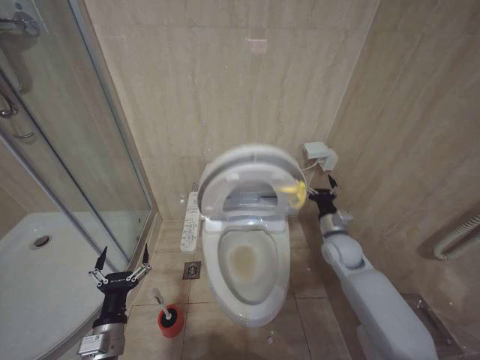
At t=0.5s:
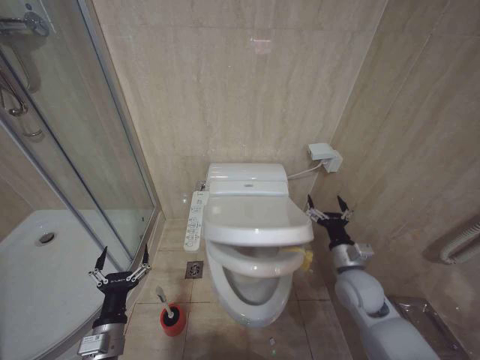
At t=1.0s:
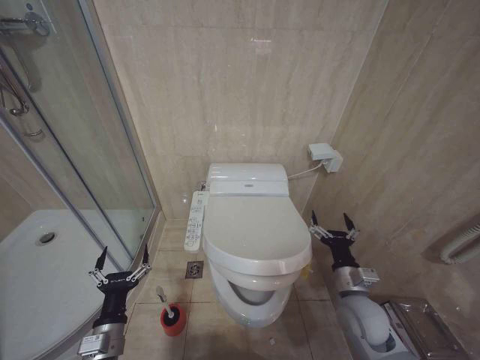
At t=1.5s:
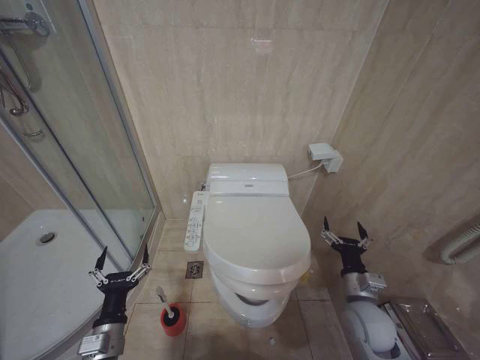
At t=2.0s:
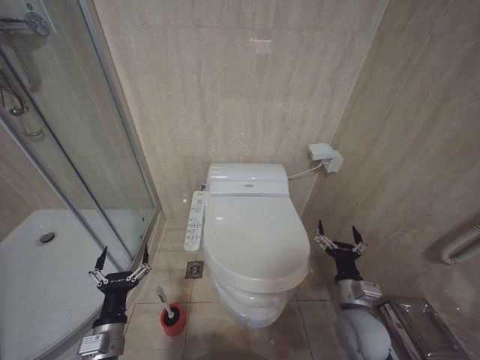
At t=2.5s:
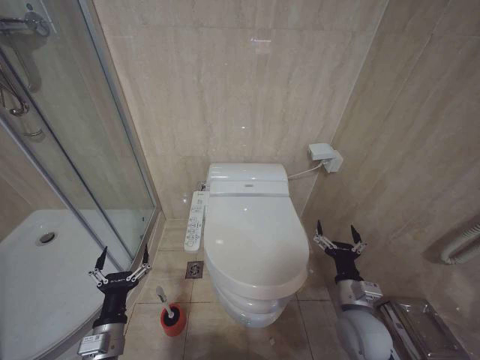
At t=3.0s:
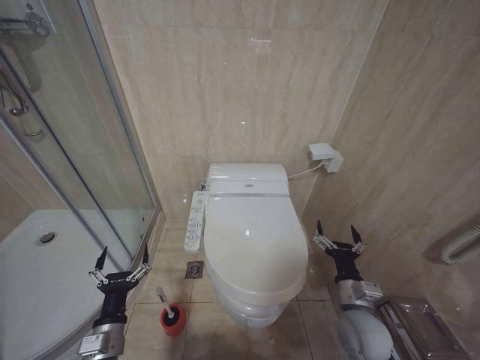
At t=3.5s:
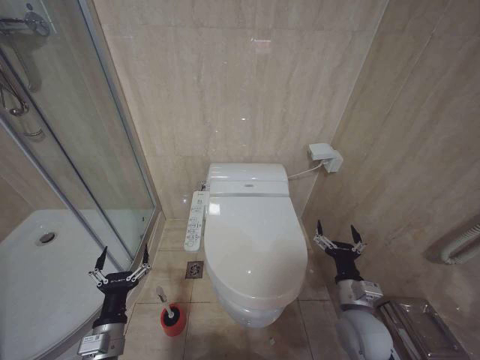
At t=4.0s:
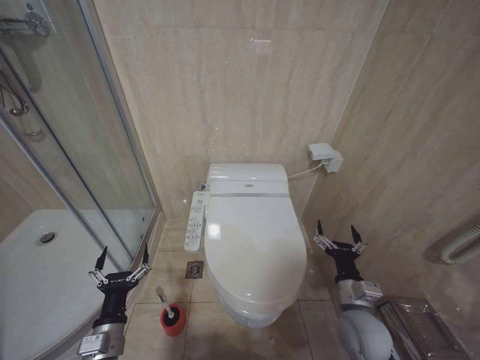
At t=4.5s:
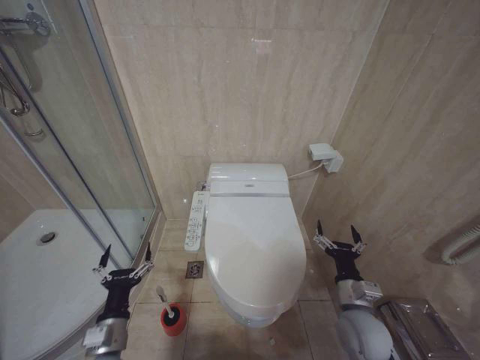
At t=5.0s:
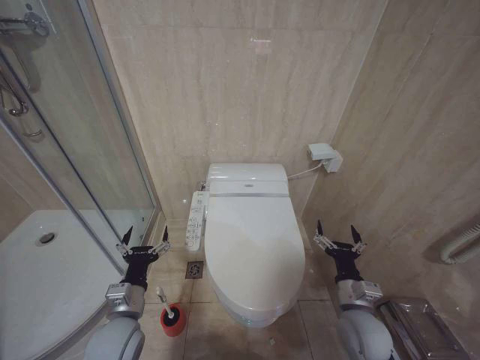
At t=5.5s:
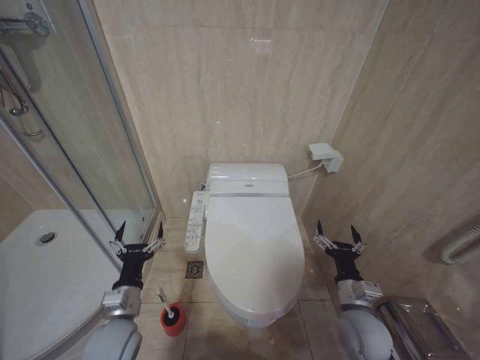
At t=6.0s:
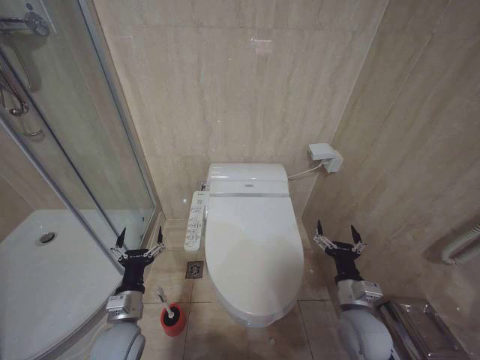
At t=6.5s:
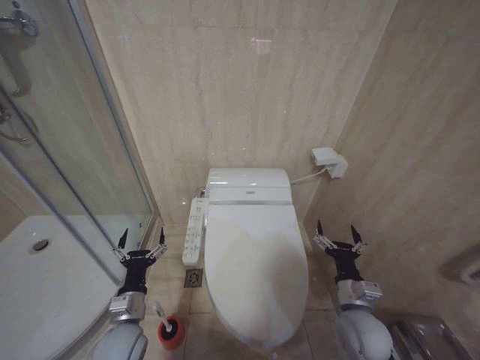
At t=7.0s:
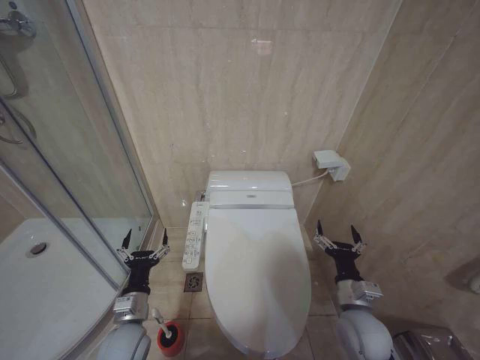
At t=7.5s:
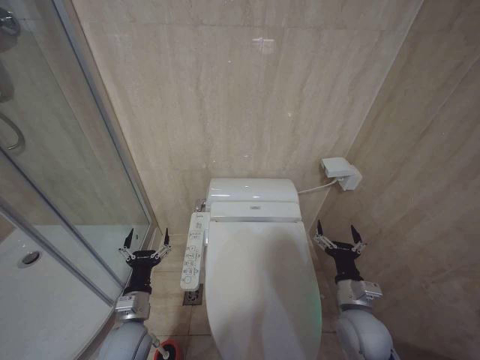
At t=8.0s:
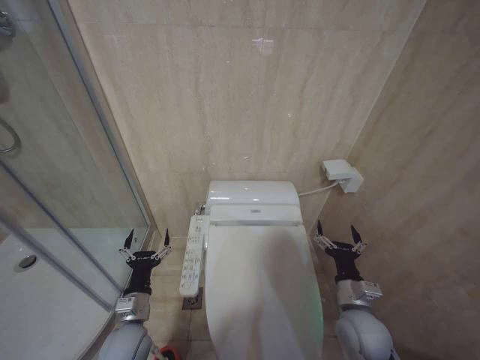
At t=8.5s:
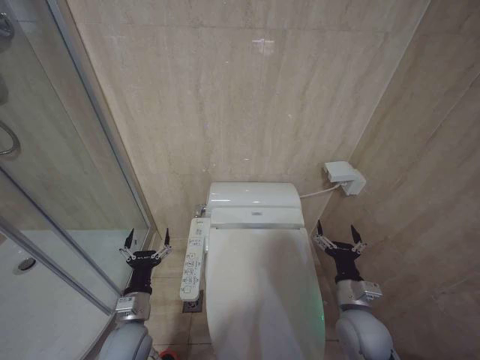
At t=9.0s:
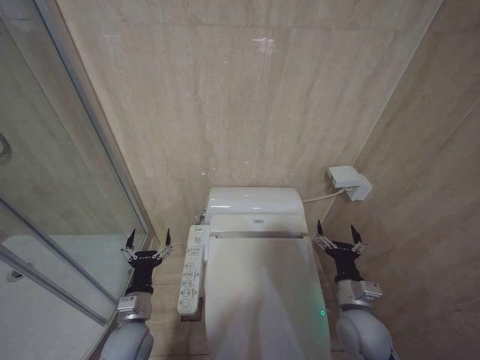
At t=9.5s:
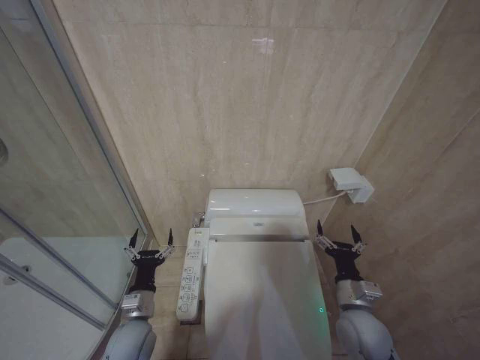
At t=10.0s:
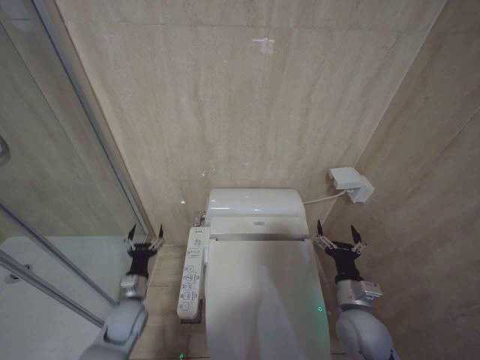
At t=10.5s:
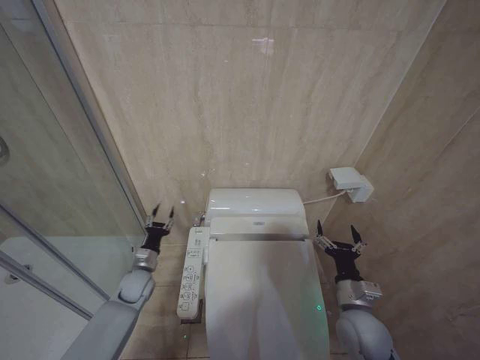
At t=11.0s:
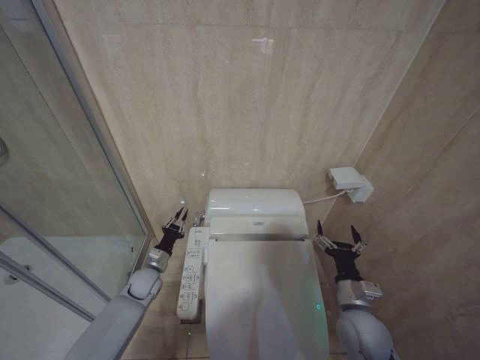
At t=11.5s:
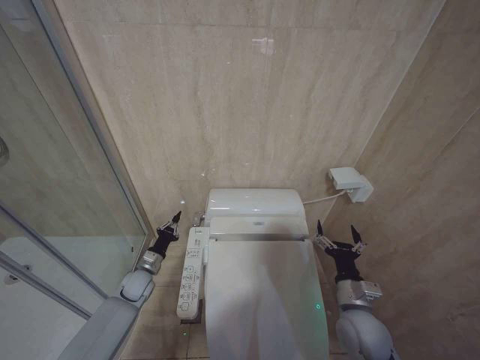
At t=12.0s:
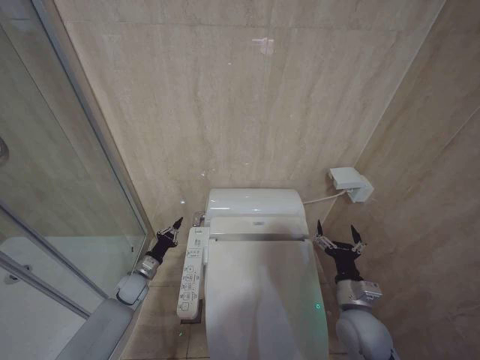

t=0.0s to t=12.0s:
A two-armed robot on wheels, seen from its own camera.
Task of the whole recording: Open the toilet lid, clean the toilet bowl with a toilet brush, close the toilet lid, and flush.
t=0.0s to t=2.0s: The right gripper travels backward by roughly 20 cm.
t=2.0s to t=4.0s: Neither gripper changes place.
t=4.0s to t=6.0s: The left gripper is displaced forward by approximately 5 cm.
t=6.0s to t=8.0s: There are only small adjustments of the grippers.
t=8.0s to t=10.0s: The left gripper moves forward, some 5 cm.
t=10.0s to t=12.0s: The left gripper moves forward, some 10 cm, and closes its fingers.

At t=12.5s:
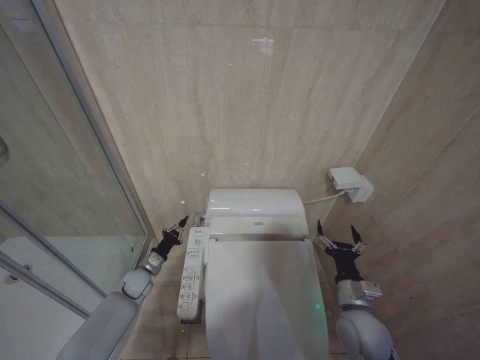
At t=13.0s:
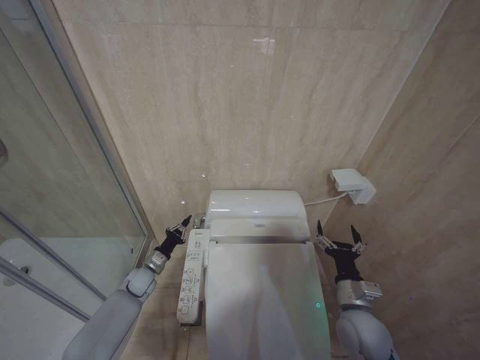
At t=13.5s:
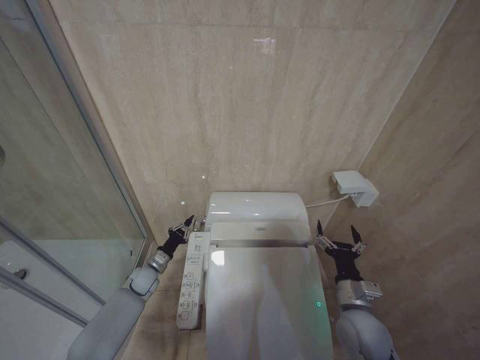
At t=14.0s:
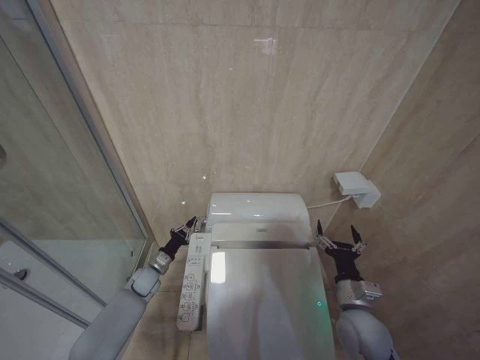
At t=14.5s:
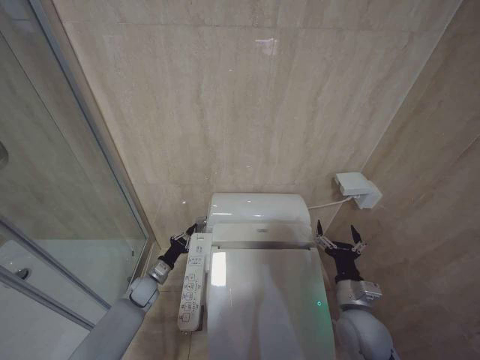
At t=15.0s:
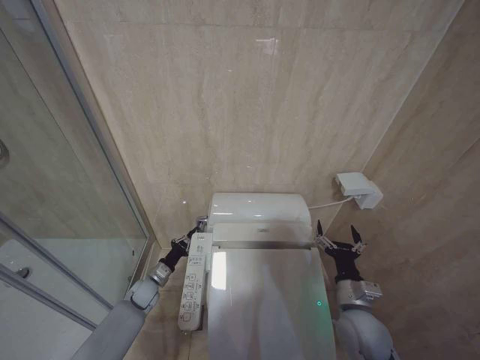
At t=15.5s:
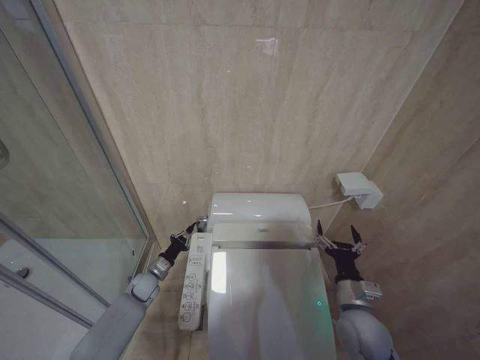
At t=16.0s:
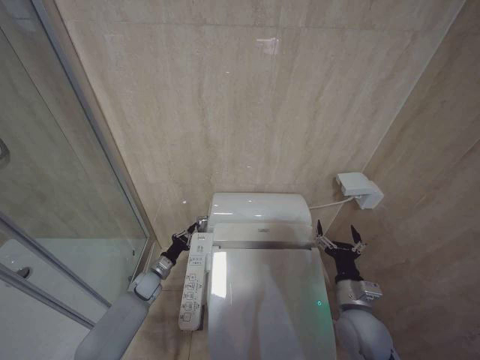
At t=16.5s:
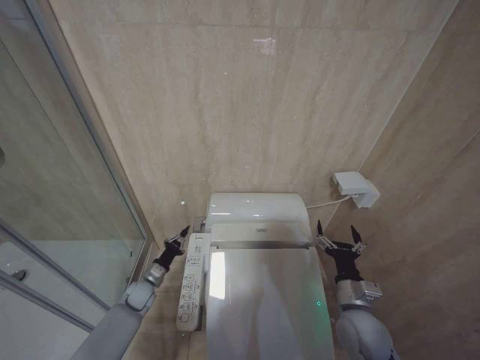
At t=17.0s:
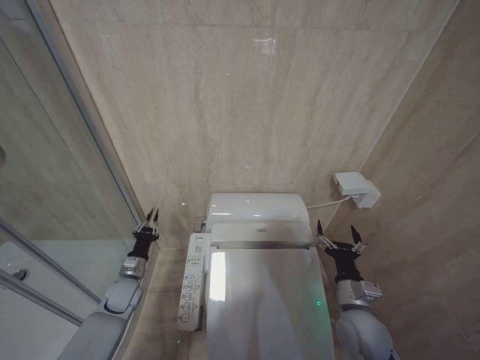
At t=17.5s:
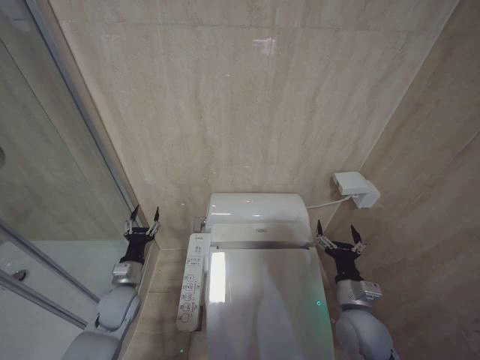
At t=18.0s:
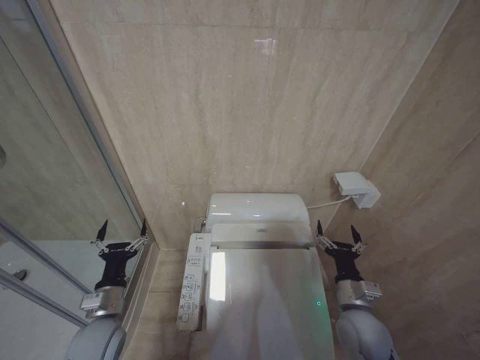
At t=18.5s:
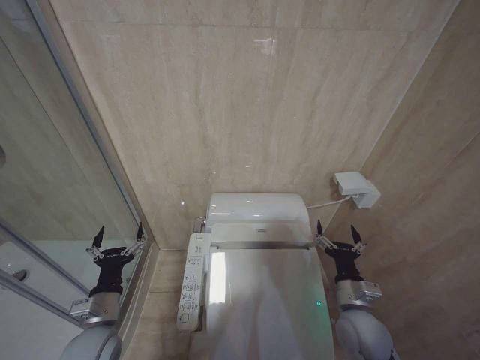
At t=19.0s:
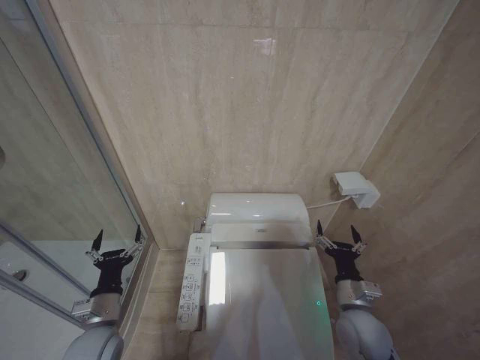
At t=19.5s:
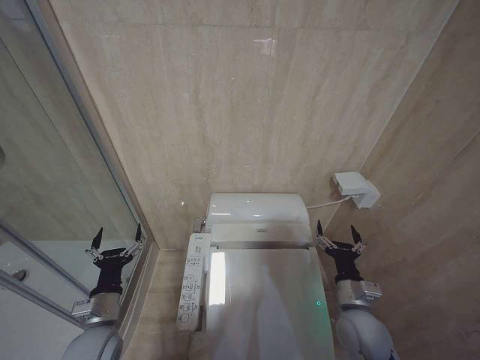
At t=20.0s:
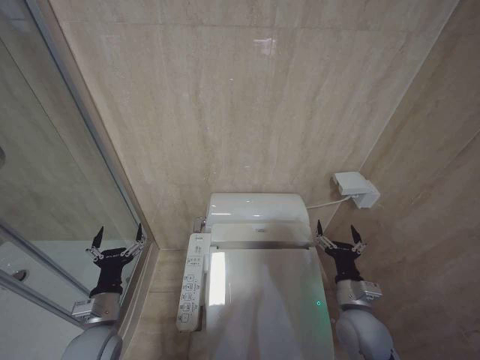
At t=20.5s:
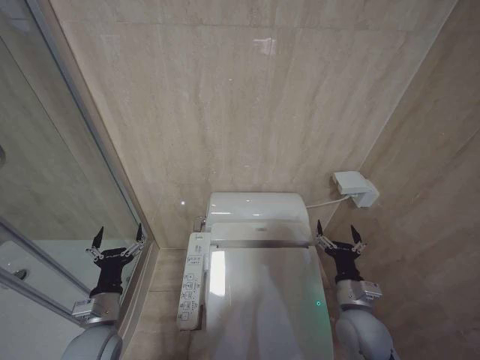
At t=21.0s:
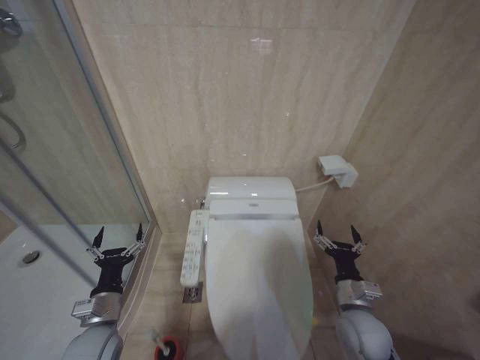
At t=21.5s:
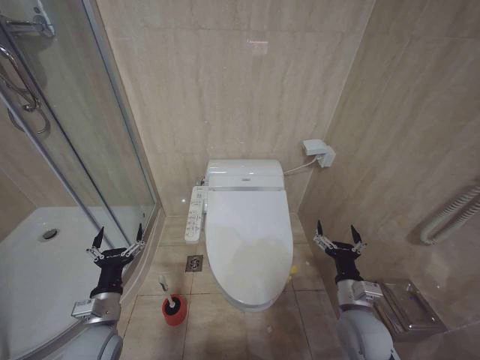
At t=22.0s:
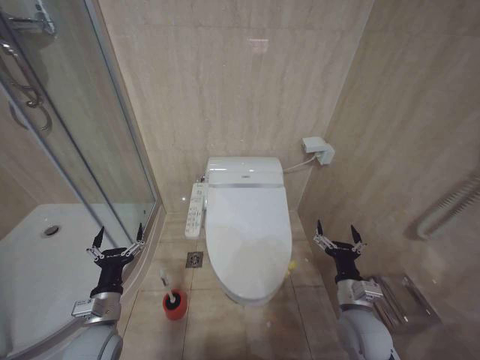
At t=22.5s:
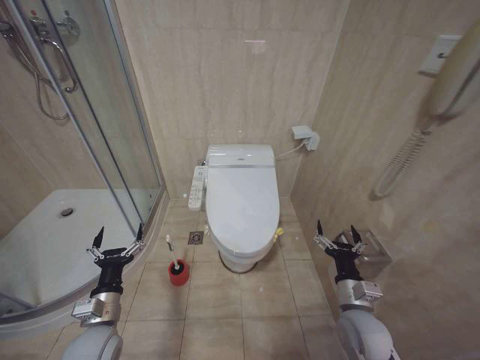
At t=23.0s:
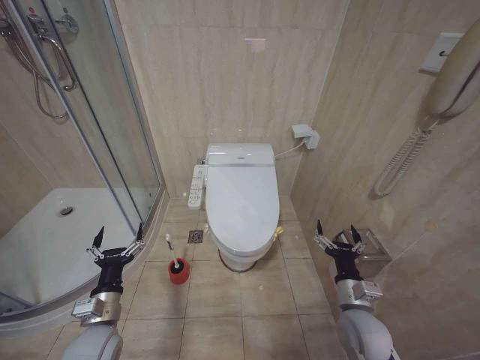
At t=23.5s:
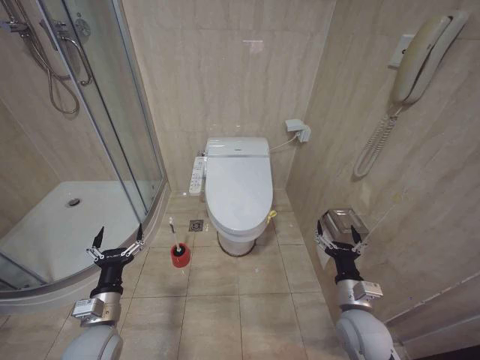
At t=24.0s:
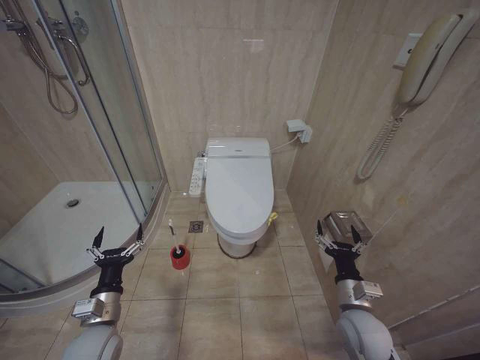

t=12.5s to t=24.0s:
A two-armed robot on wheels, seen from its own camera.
Task of the whole recording: Open the toilet lid, clean the toilet bowl with a toilet brush, close the toilet lid, and flush.
t=12.5s to t=16.5s: The grippers move only a little.
t=16.5s to t=18.5s: The left gripper heads backward and upward, covering about 25 cm, and opens its fingers.
t=18.5s to t=20.0s: Neither gripper changes place.

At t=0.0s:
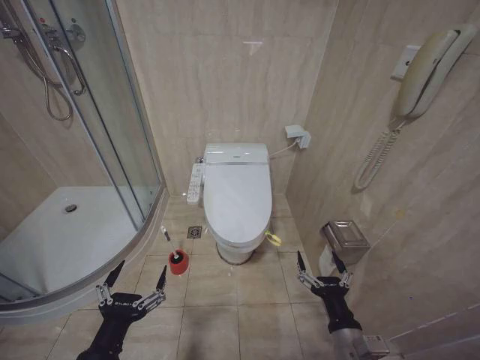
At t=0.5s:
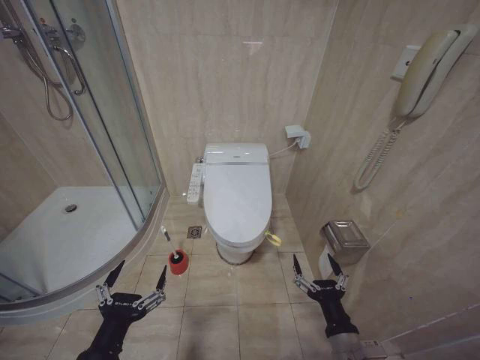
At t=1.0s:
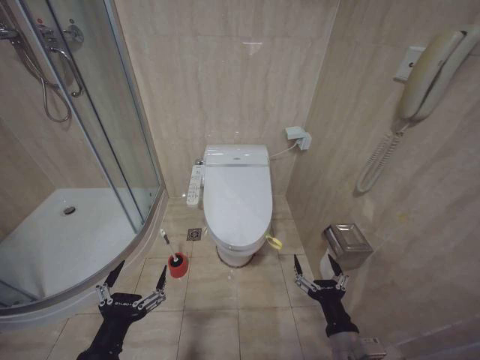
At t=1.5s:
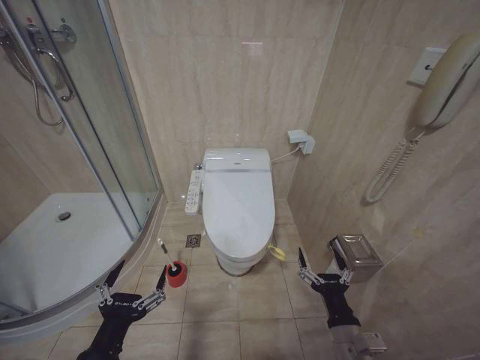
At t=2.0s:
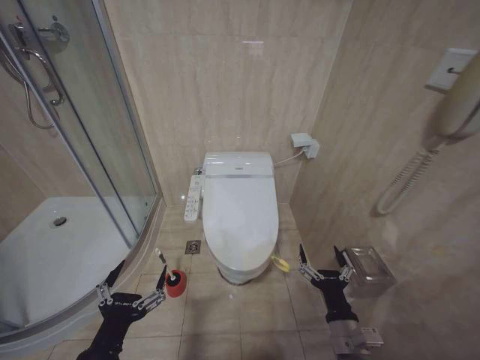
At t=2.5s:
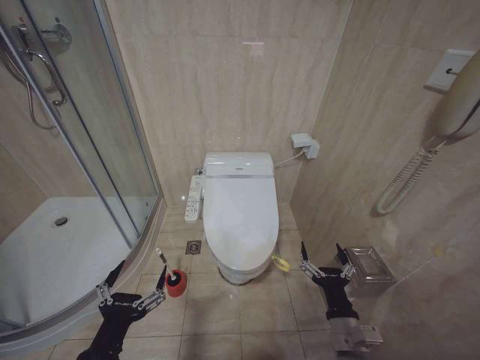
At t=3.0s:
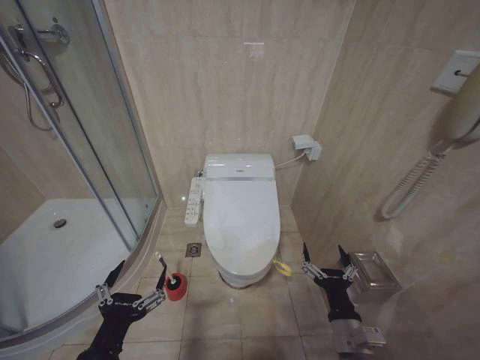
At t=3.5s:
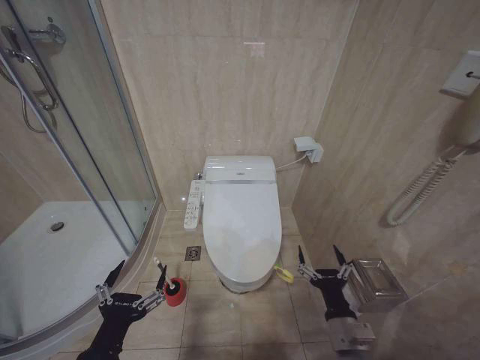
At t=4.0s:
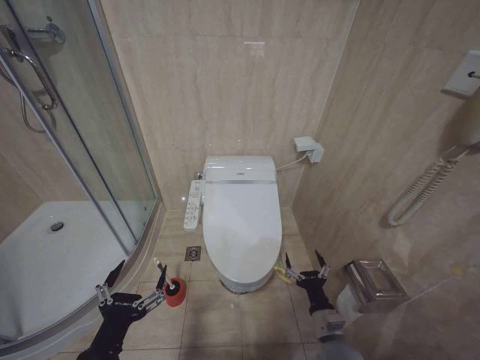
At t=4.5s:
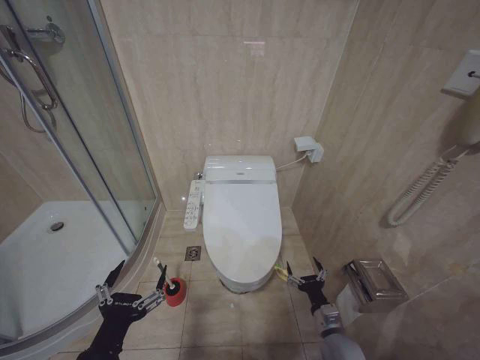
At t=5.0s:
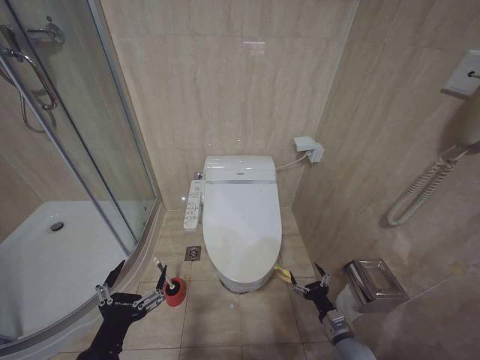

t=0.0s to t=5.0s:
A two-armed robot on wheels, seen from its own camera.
Task of the whole recording: Open the toilet lid, clean the toilet bowl with a toilet brush, close the toilet lid, and flush.
t=2.5s to t=5.0s: The right gripper travels downward, to the right and forward by about 15 cm.
